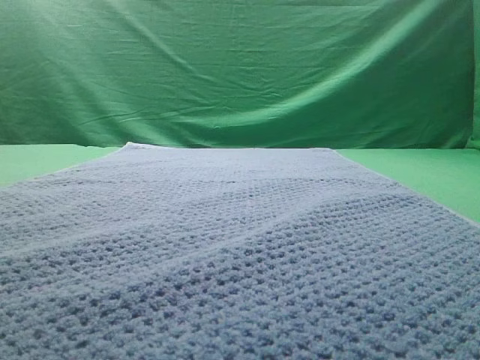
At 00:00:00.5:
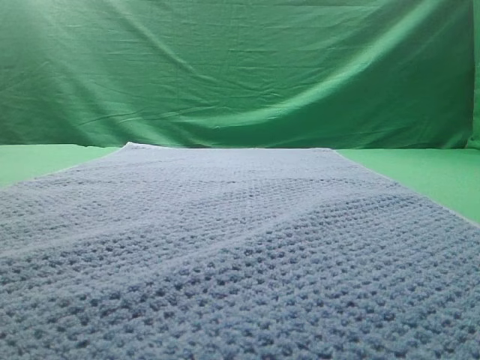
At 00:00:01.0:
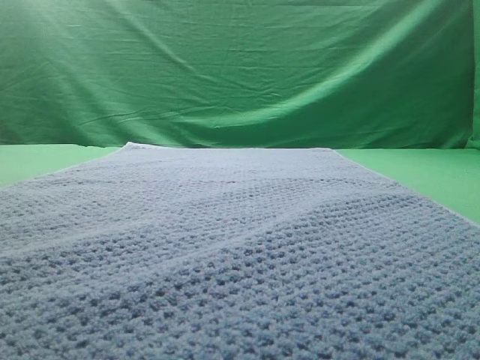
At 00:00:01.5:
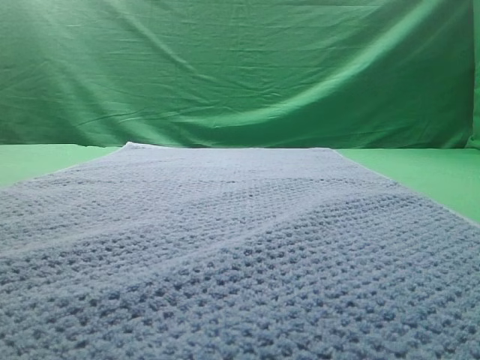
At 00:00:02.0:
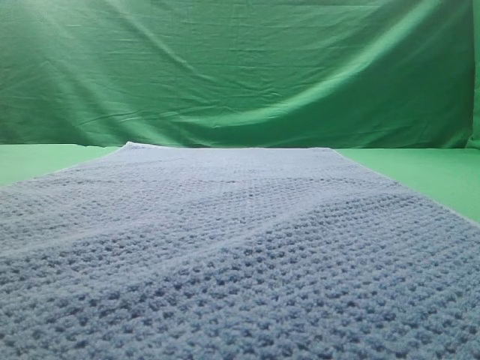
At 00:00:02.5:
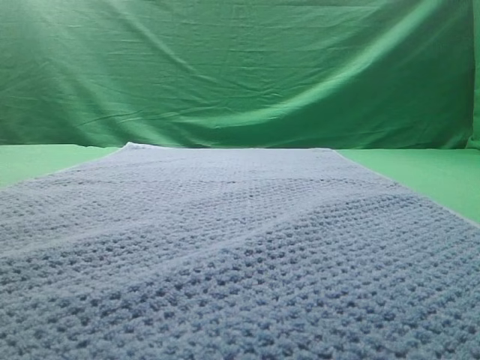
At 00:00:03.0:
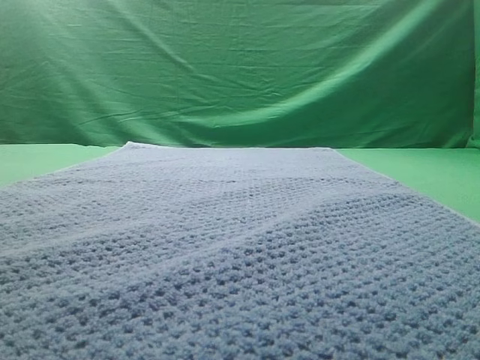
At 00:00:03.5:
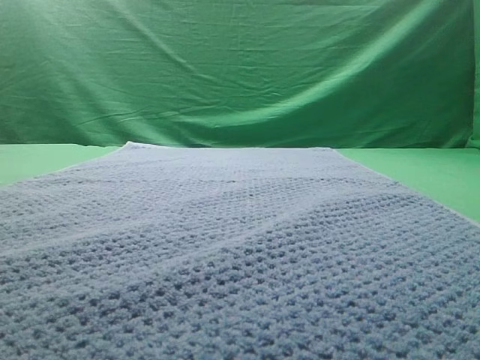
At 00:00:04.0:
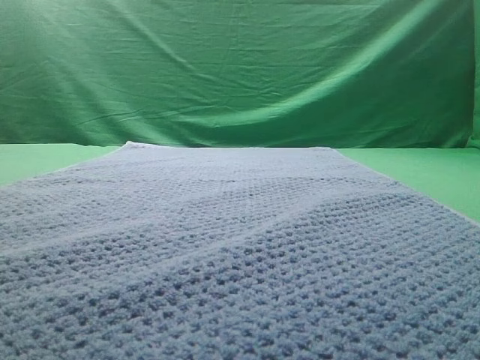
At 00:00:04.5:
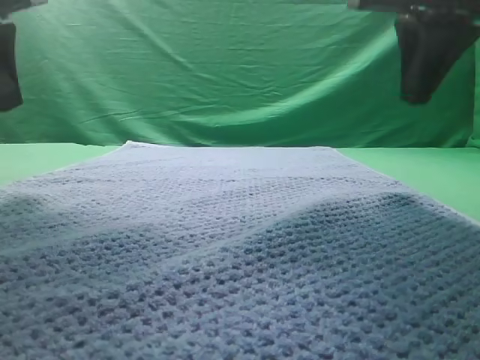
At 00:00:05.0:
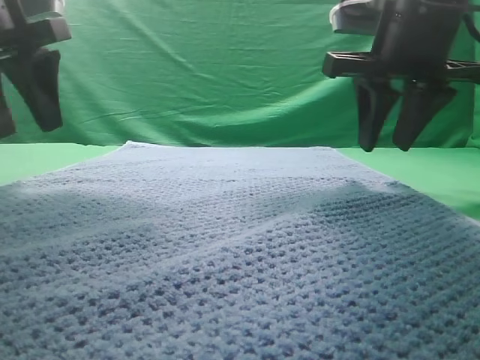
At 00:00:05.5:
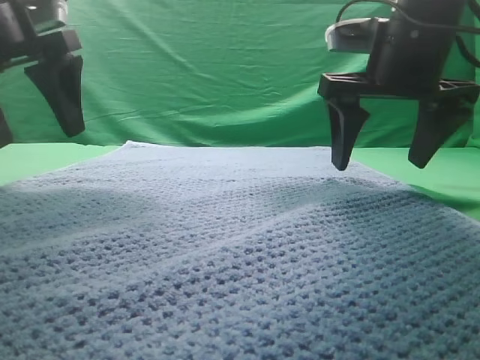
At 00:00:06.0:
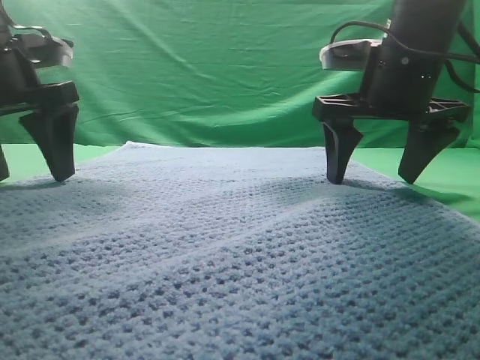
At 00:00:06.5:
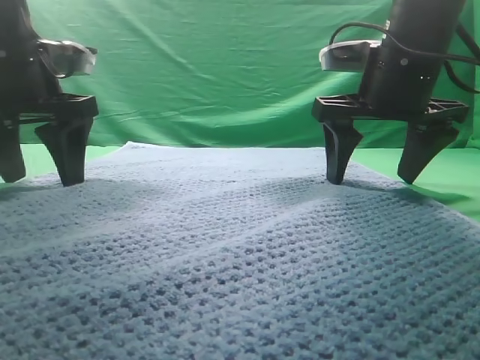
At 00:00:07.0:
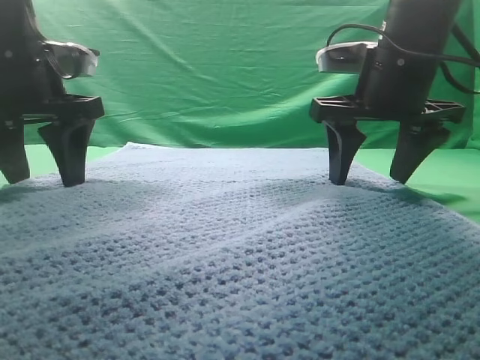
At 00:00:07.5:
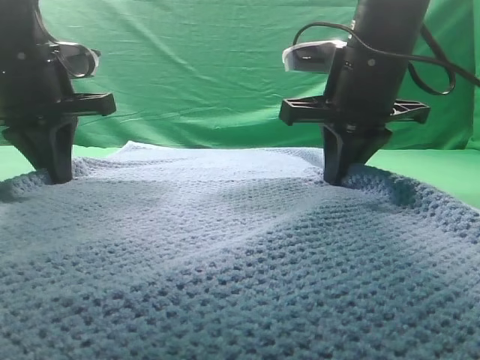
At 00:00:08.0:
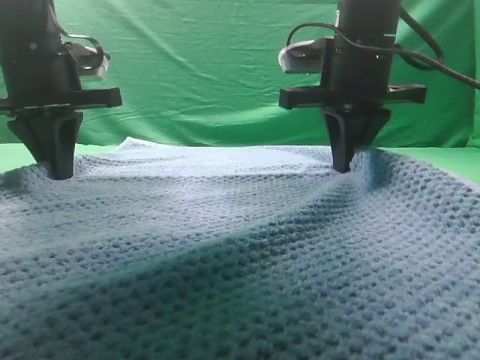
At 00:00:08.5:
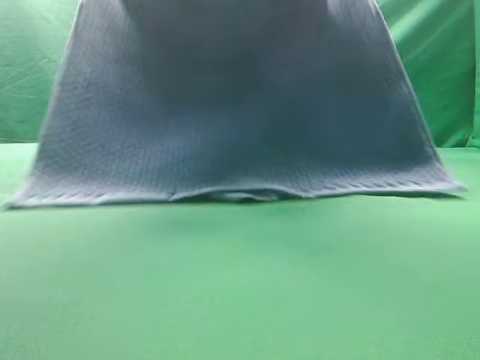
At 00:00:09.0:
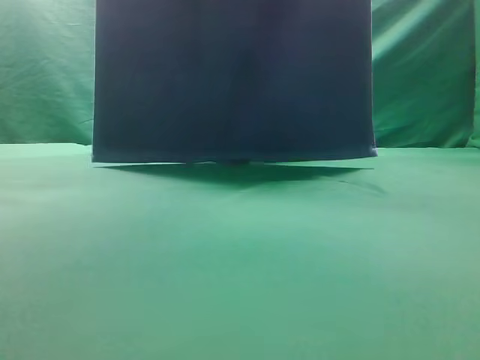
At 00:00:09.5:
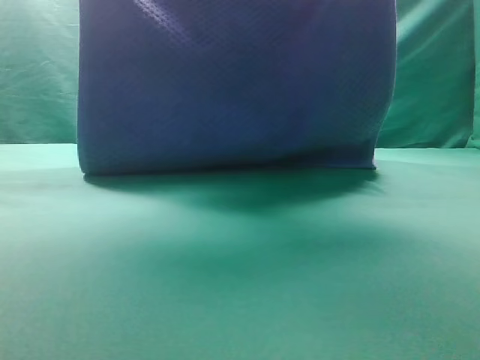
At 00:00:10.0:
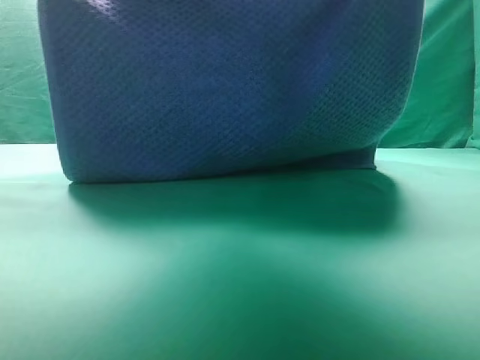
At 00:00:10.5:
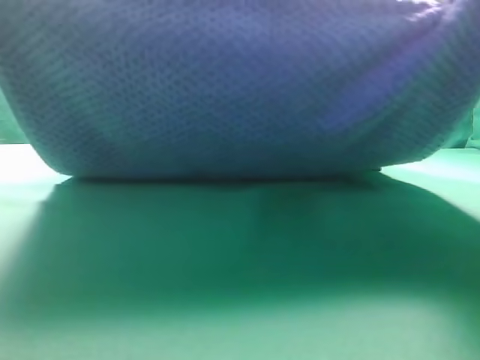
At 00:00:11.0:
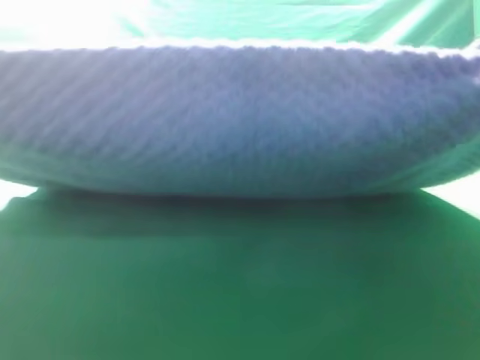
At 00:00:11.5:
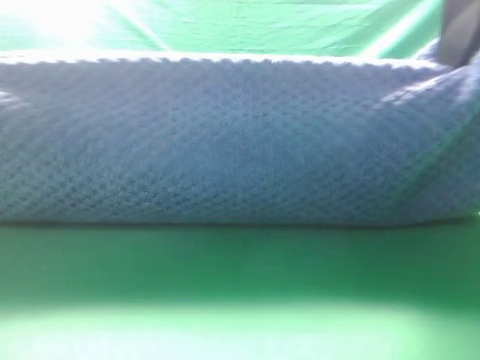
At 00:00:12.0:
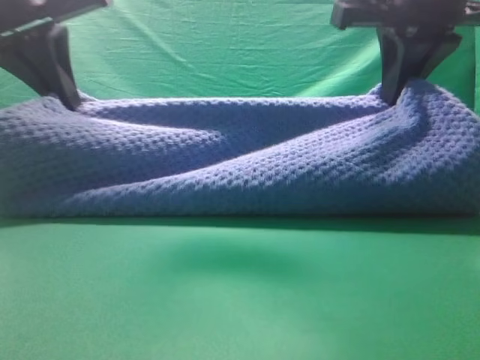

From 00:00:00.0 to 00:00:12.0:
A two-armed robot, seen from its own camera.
Task of the whole recording: fold the towel on the table twice.
Step, from 00:00:00.0 to 00:00:08.5: pick up the towel with two arm.

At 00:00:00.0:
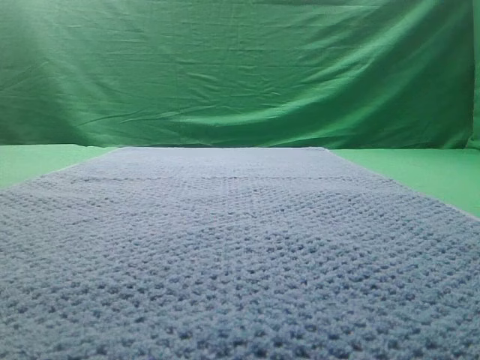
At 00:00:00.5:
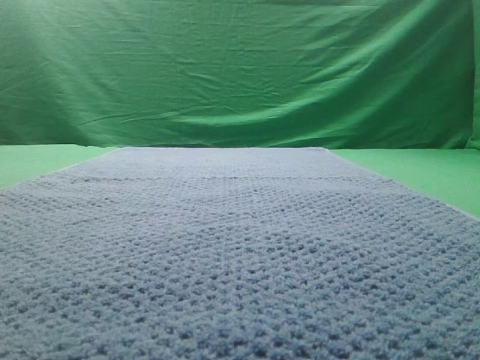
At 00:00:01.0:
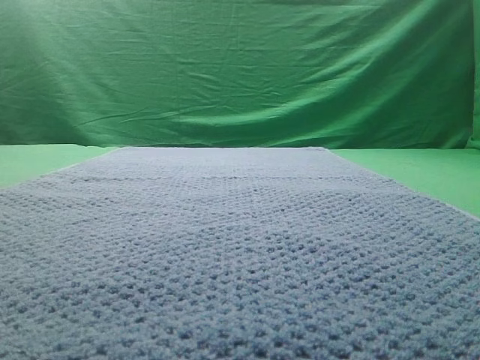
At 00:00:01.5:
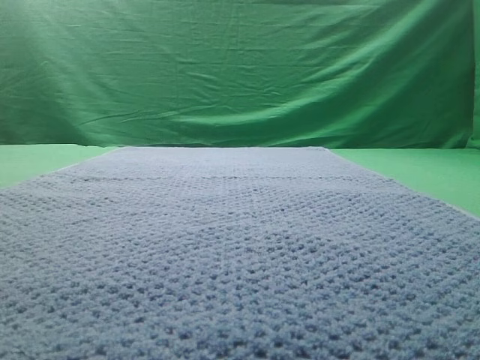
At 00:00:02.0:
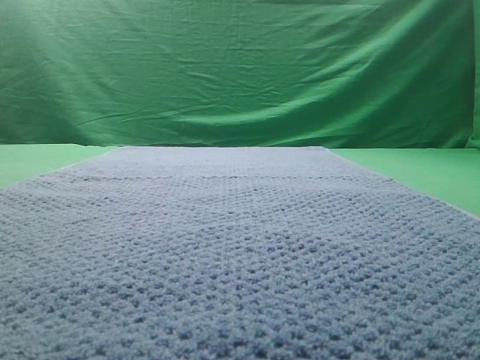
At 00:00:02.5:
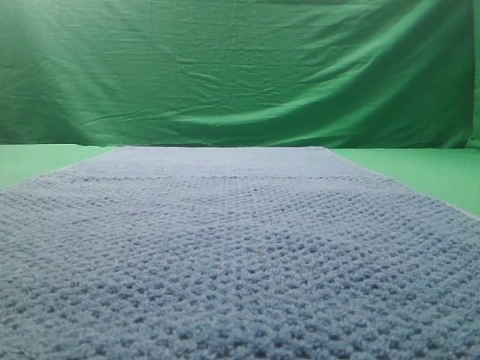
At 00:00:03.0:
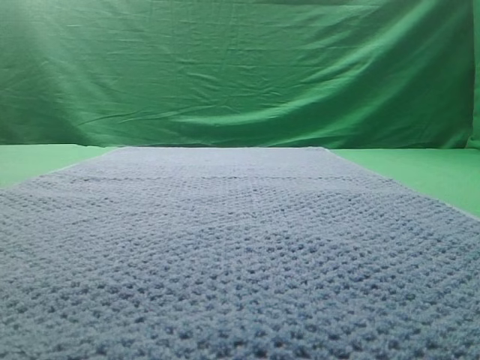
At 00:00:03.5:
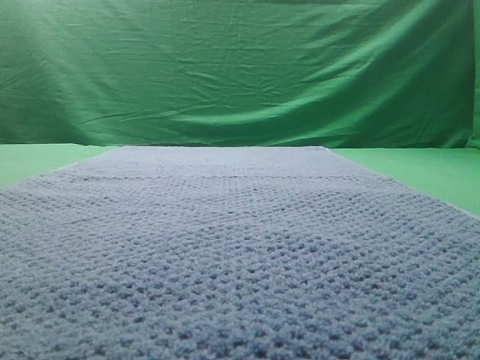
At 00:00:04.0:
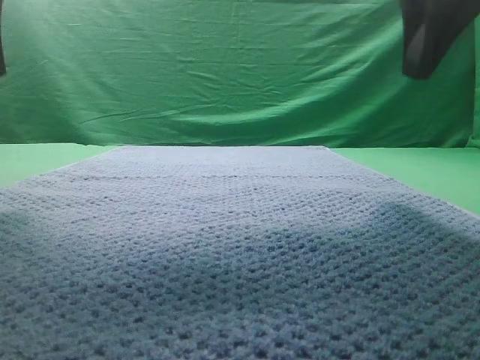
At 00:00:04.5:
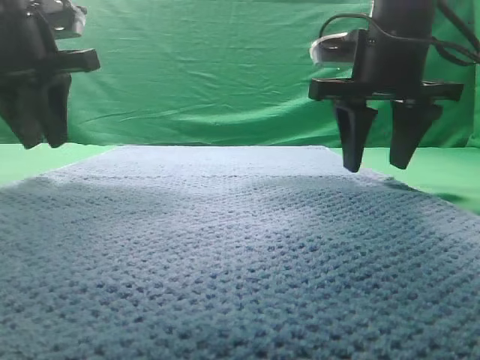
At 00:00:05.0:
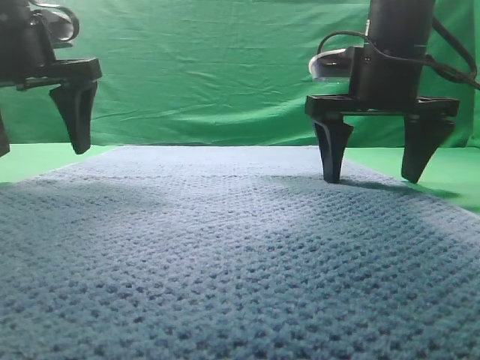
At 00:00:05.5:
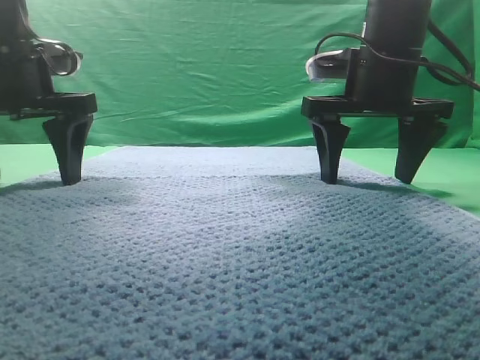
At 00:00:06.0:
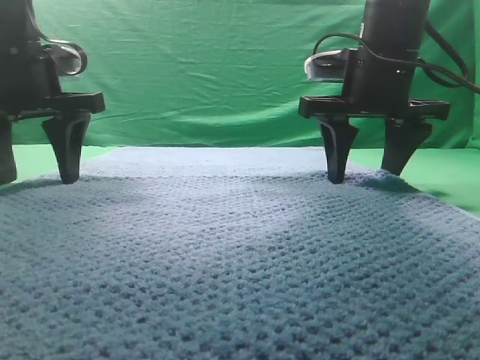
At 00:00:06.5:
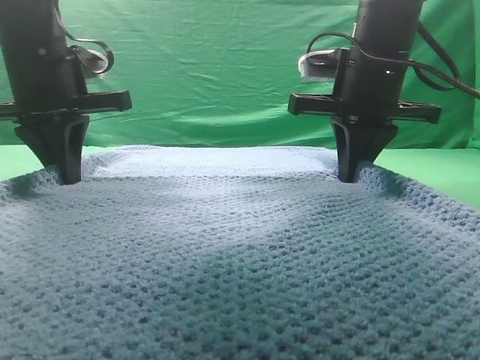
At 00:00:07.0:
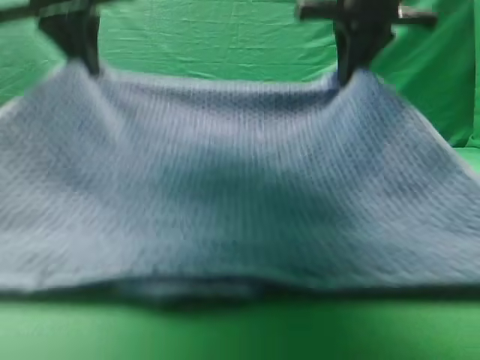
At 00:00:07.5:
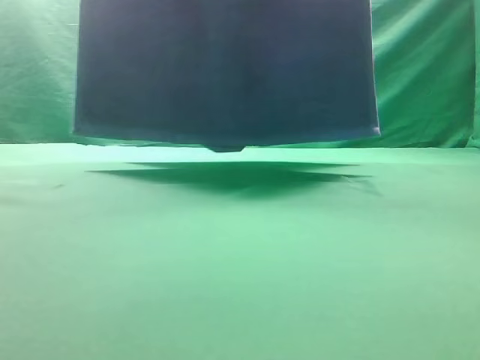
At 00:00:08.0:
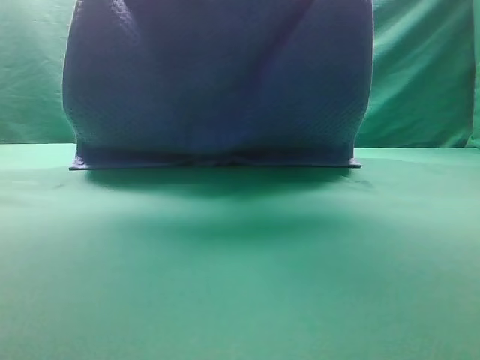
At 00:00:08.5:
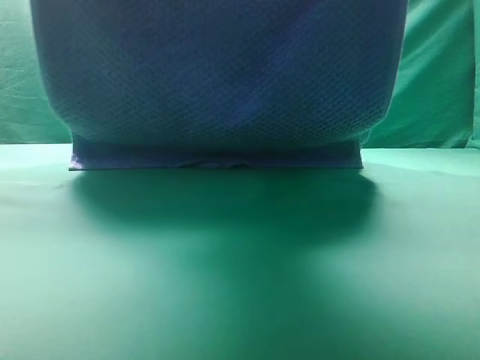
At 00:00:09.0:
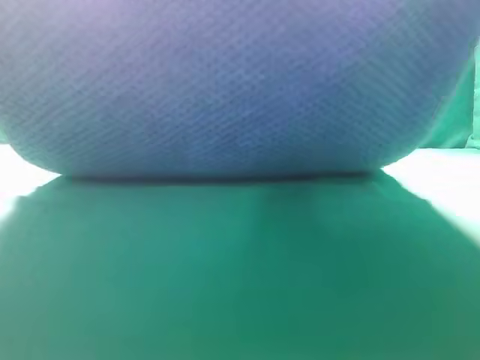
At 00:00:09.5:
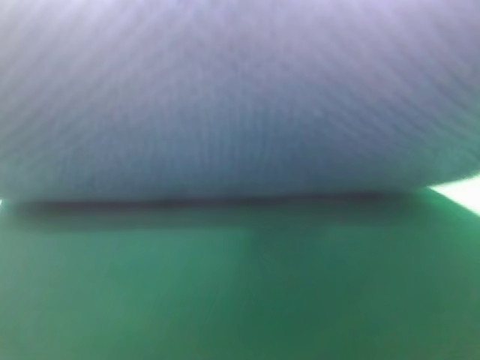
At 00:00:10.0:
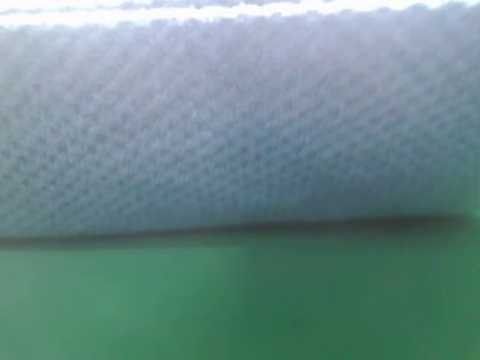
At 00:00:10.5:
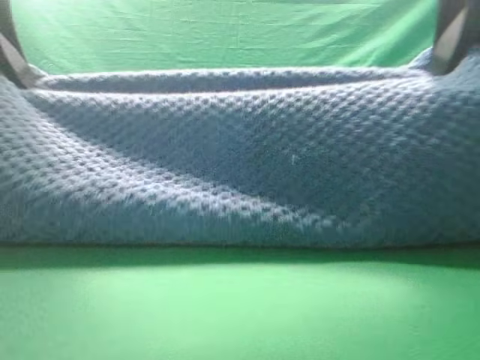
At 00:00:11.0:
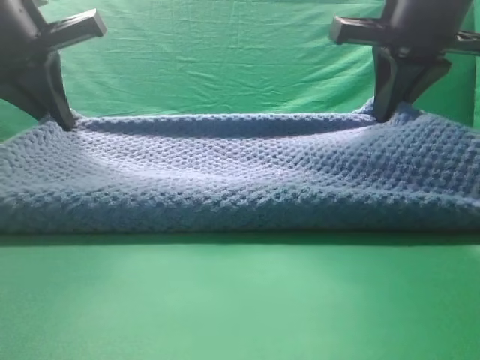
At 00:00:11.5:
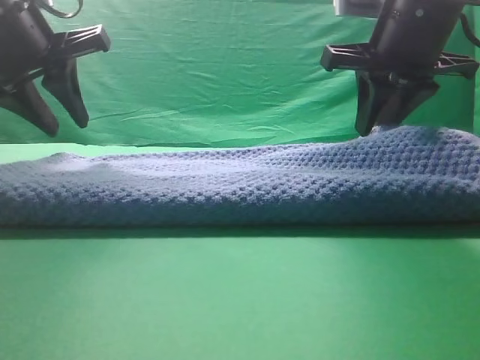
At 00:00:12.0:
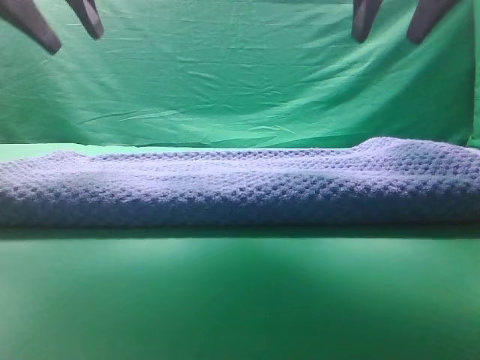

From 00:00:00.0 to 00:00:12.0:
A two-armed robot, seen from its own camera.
Task of the whole recording: fold the towel on the table twice.
Step, from 00:00:00.0 to 00:00:07.0: pick up the towel with two arm.
Step, from 00:00:07.5 to 00:00:11.5: Fold the towel twice on the table.
